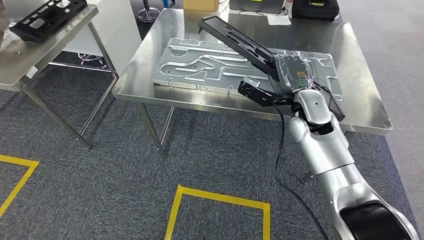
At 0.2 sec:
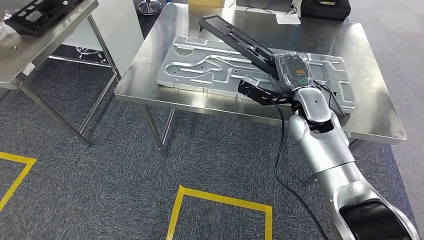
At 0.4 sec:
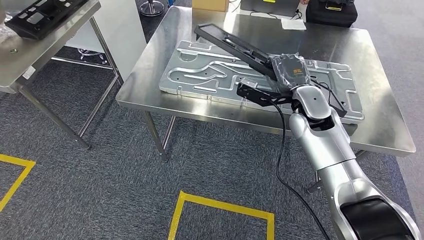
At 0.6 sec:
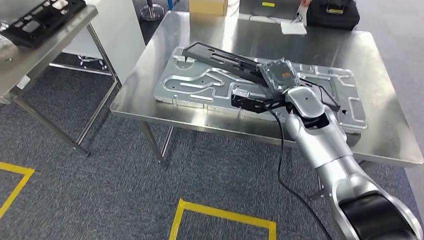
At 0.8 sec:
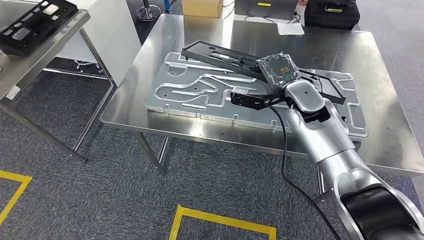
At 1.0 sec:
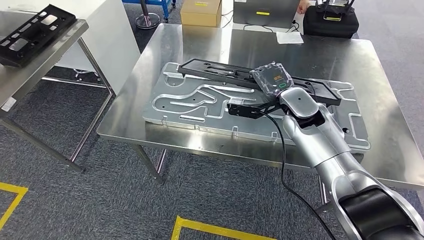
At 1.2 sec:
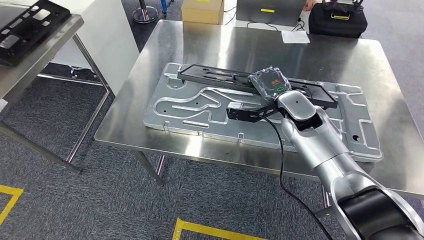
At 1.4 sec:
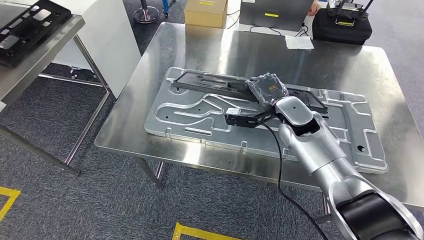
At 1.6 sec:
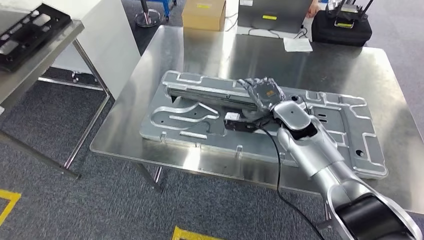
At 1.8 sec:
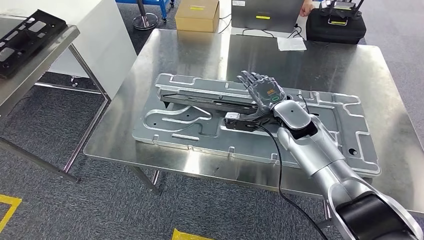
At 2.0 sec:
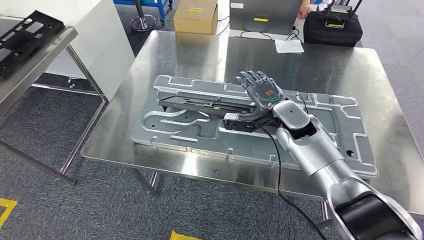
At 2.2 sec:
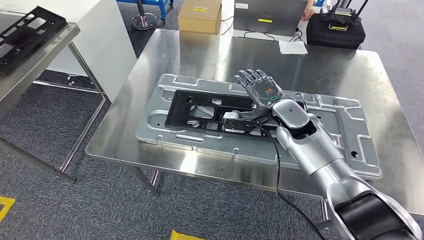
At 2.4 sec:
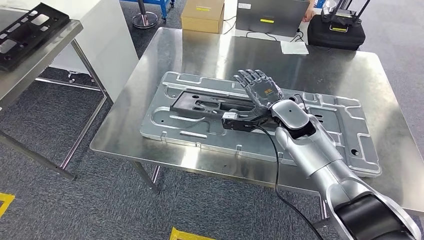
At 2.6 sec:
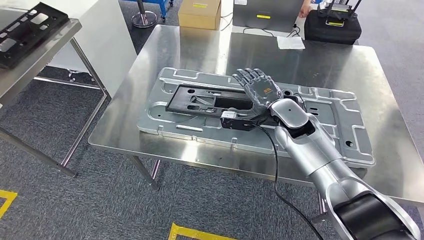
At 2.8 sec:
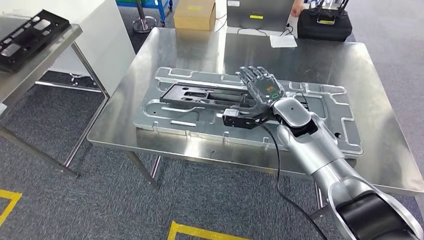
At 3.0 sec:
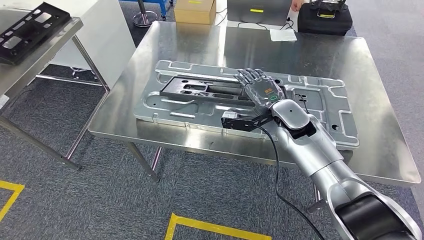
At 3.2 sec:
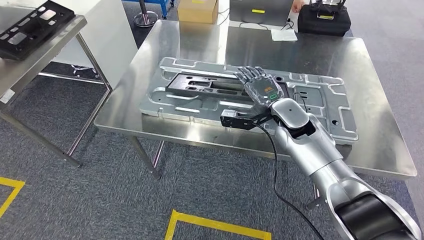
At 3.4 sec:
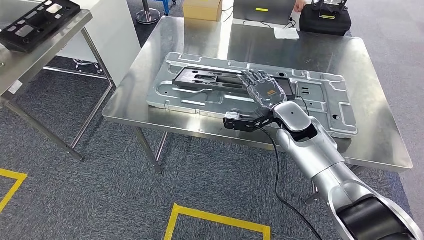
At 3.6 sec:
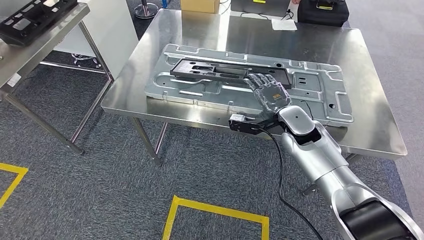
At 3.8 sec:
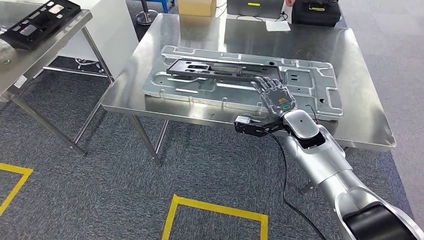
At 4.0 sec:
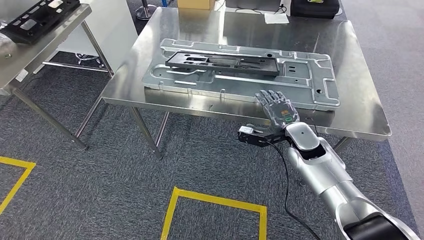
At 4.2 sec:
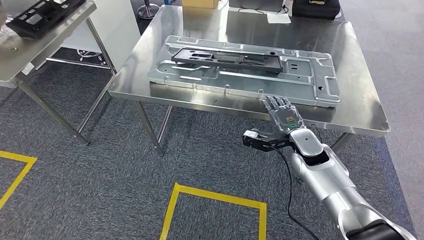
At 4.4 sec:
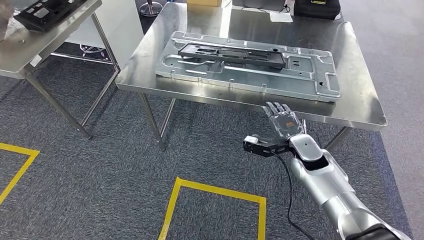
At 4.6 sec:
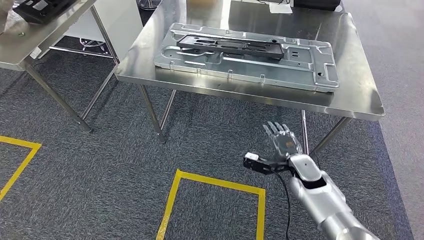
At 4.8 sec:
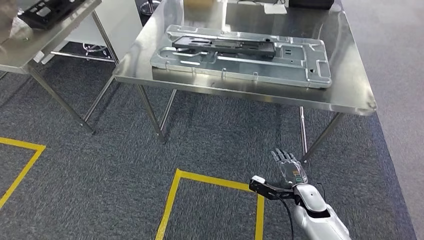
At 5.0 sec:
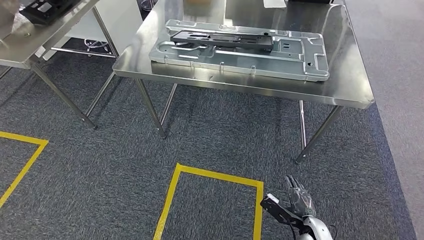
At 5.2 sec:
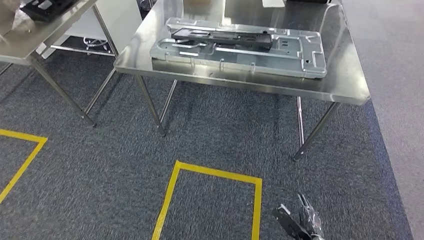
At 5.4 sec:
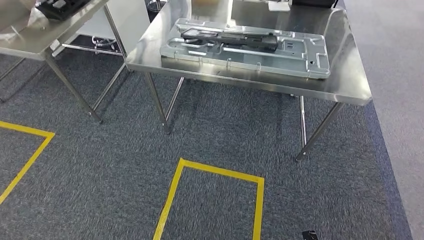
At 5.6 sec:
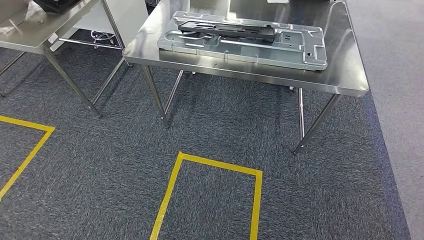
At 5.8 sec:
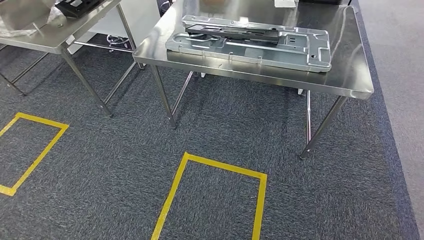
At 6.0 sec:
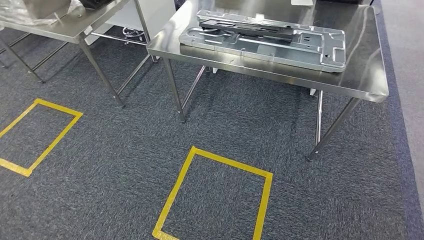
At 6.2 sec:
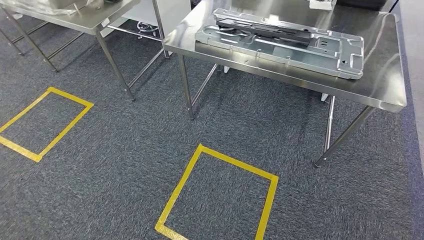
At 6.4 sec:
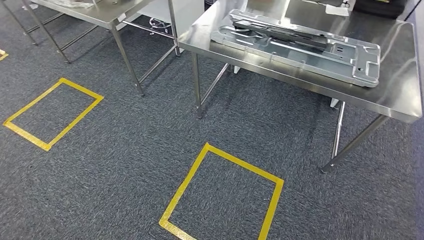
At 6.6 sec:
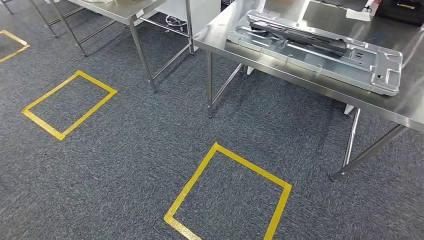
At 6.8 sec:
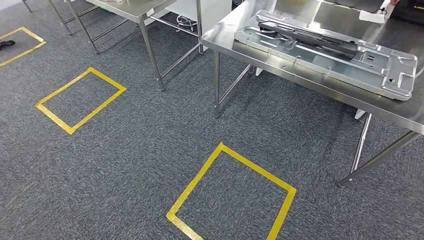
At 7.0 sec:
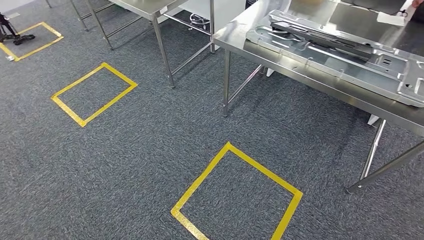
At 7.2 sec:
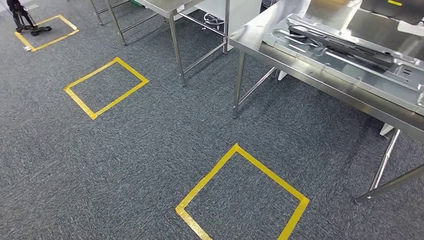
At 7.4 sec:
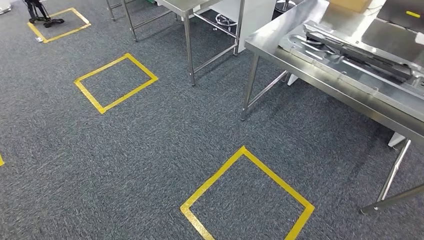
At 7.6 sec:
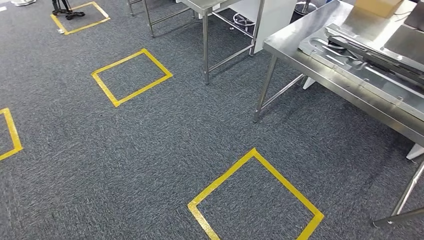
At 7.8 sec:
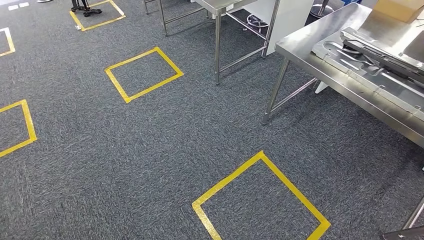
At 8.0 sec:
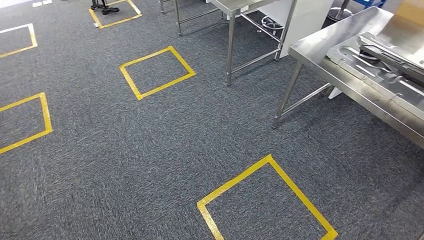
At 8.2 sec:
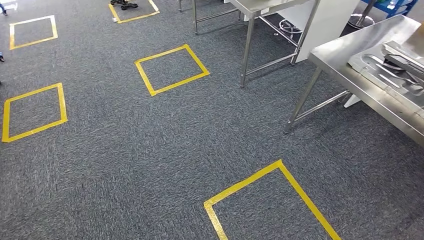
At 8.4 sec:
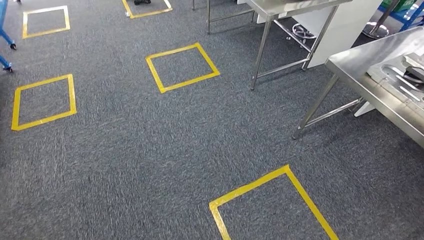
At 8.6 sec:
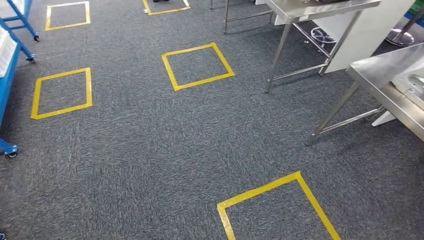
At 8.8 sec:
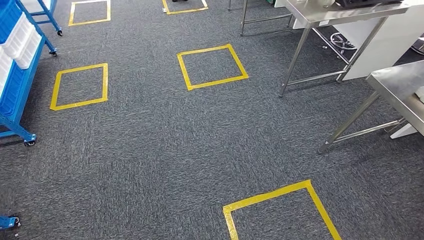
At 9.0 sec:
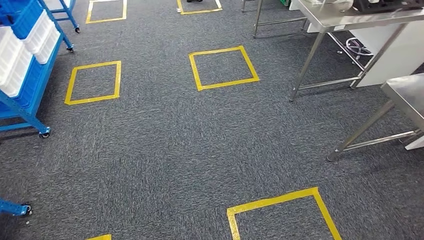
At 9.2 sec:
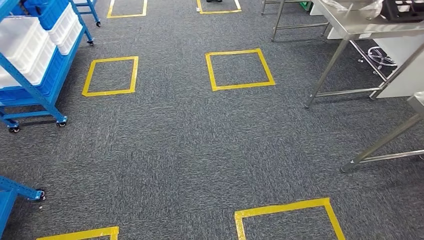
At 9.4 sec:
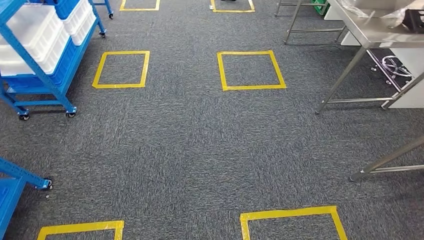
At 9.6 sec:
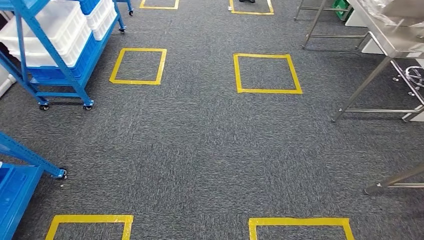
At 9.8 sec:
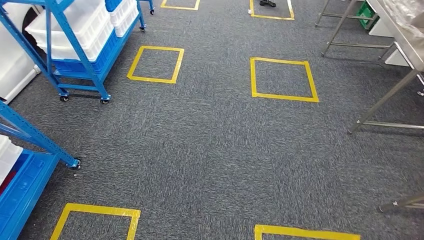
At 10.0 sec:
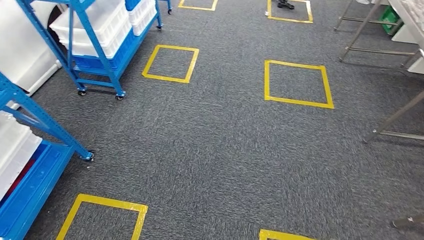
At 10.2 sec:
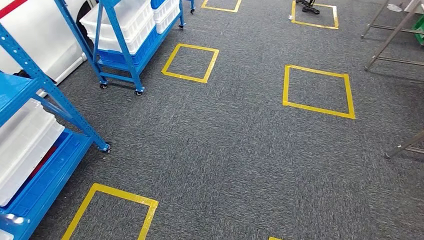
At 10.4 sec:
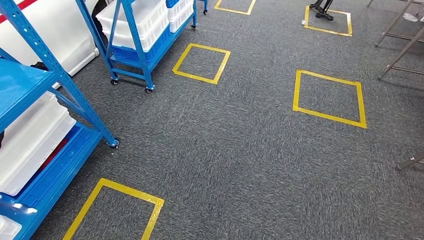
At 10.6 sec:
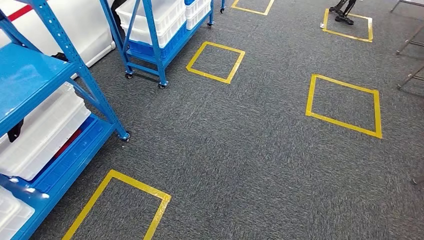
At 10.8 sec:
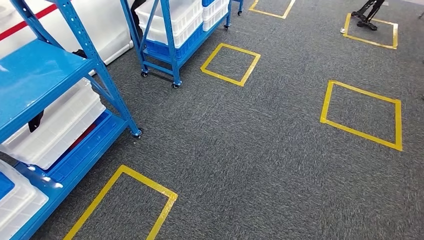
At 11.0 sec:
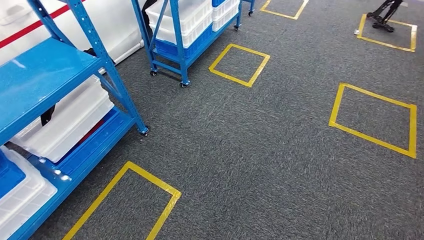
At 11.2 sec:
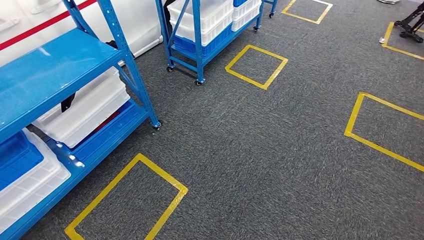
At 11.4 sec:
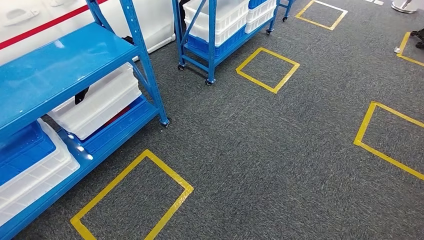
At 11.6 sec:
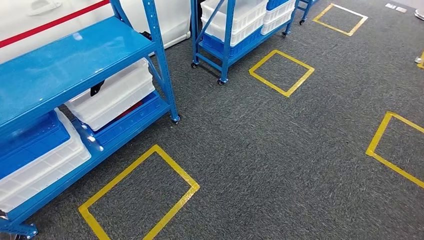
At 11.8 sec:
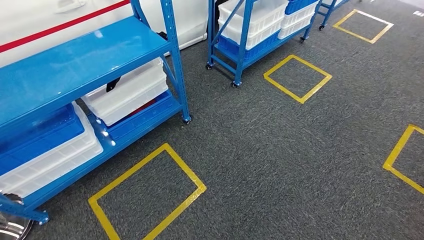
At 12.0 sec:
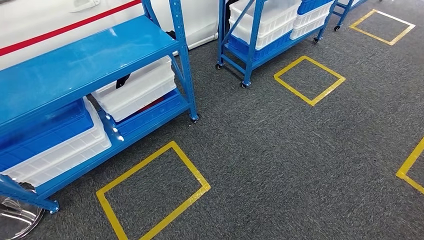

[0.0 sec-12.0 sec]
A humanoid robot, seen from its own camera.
Step, 0.0 sec to 3.6 sec: Insert the large material into the corresponding slot on the workbench.

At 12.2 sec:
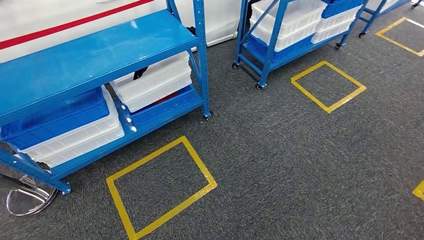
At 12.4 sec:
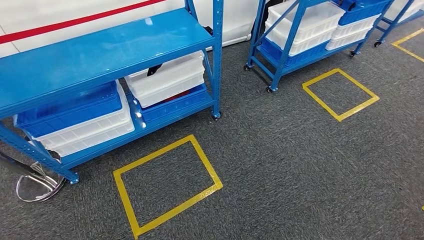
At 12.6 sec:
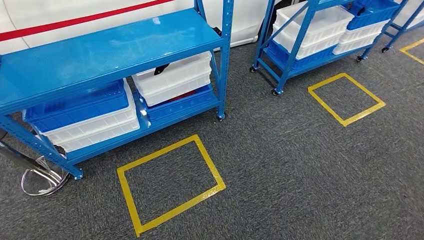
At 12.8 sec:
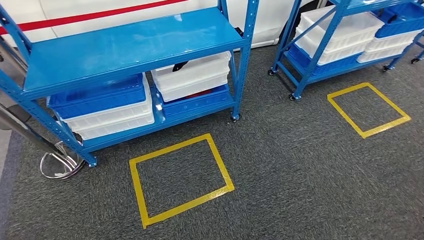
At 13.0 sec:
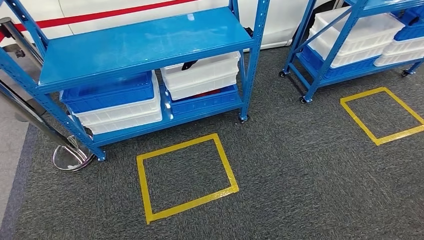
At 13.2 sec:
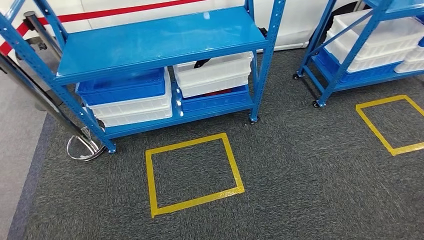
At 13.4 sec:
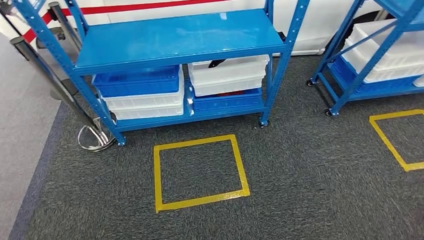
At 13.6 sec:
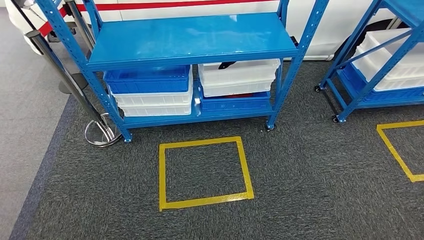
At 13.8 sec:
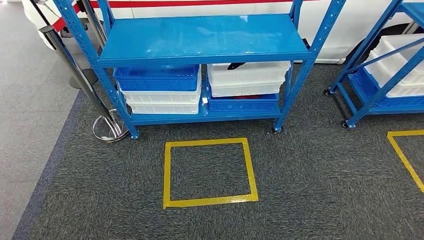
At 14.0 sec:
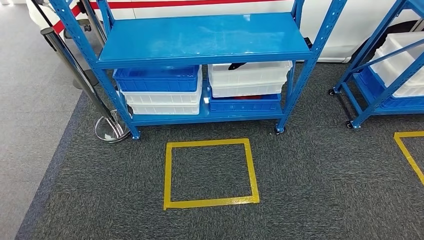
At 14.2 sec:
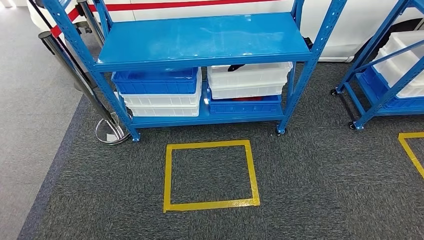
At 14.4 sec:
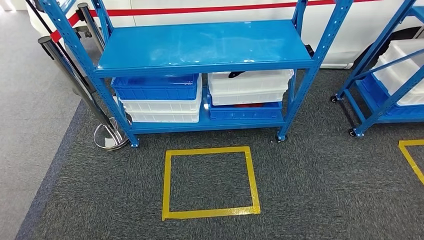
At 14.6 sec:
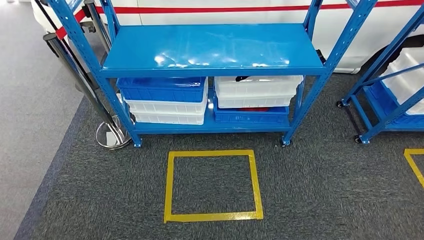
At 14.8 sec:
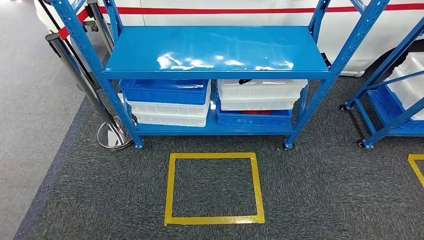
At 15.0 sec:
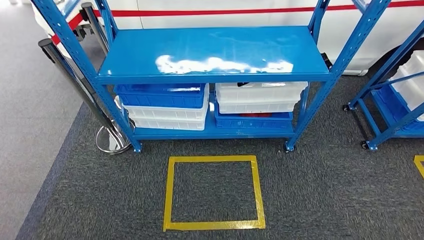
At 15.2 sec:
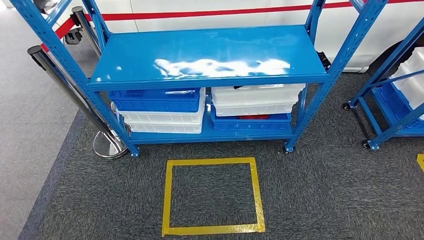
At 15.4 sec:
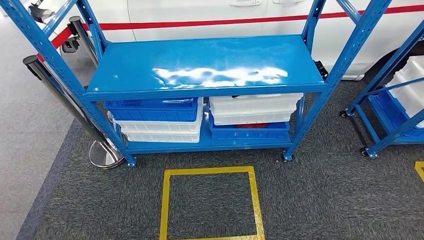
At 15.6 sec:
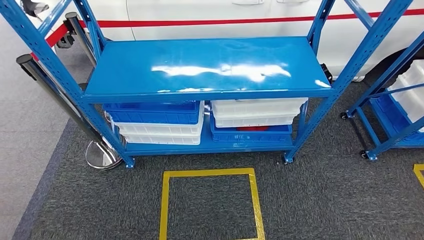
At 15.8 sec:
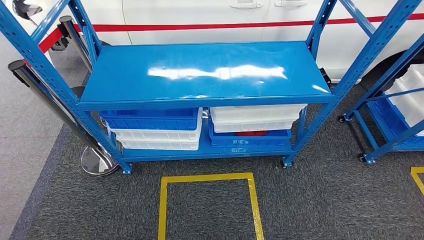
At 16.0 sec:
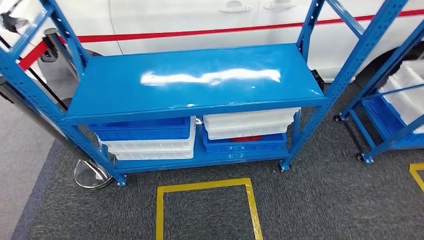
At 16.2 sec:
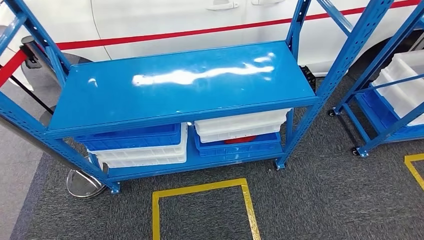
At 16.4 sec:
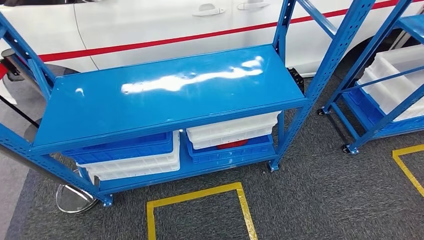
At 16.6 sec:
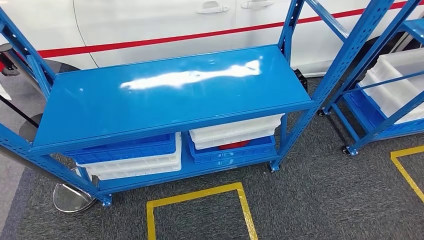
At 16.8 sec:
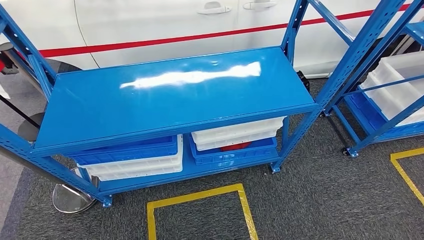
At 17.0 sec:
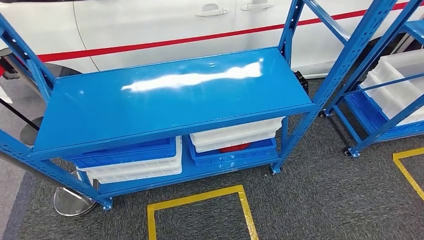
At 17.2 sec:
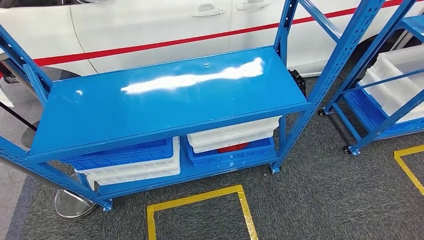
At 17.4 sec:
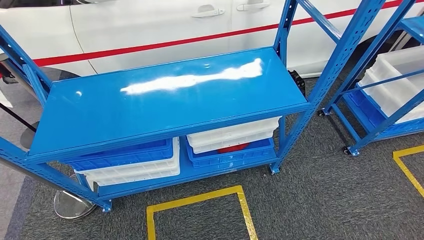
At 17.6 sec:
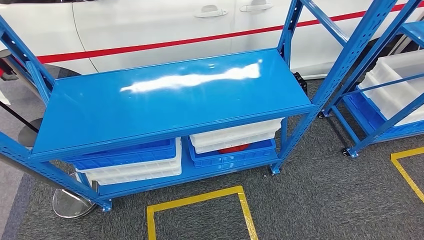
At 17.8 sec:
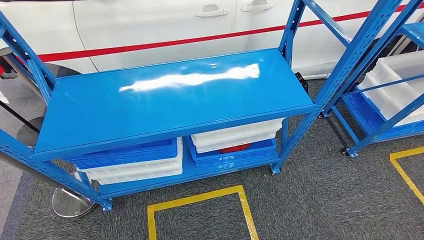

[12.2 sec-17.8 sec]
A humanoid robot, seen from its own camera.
Step, 12.2 sec to 17.8 sec: Move to the initial position of the shelf.
